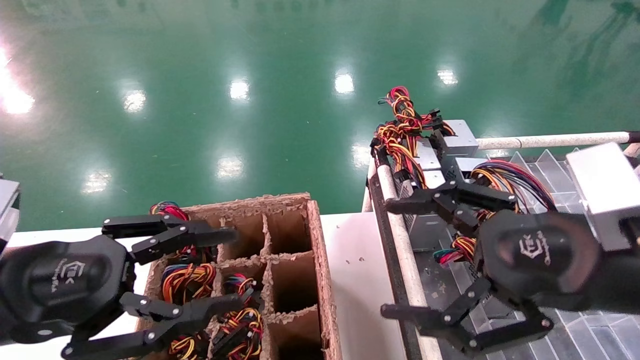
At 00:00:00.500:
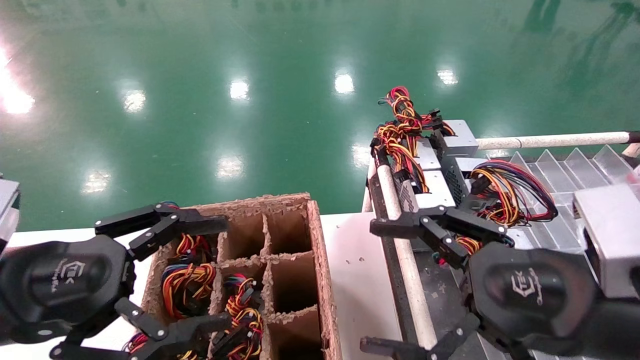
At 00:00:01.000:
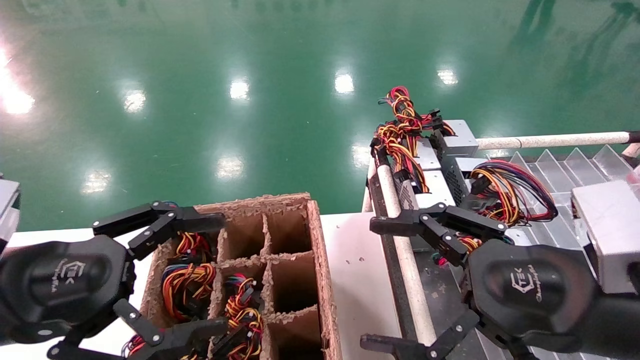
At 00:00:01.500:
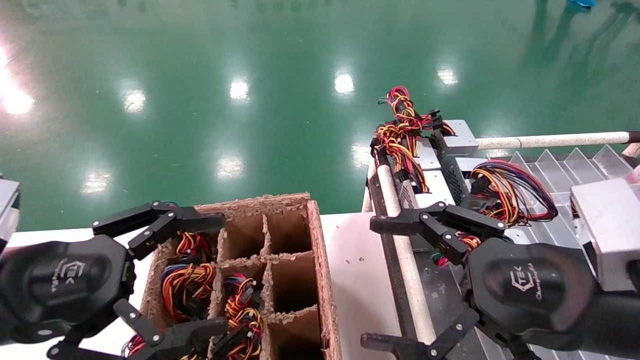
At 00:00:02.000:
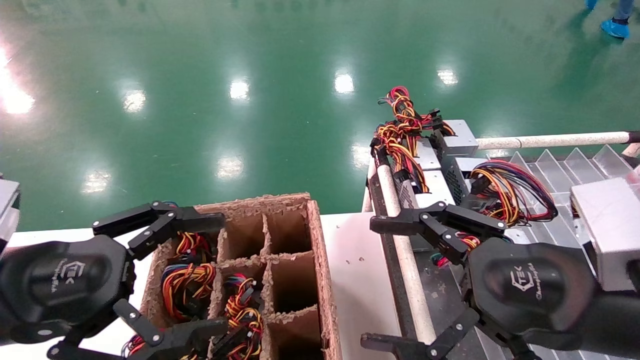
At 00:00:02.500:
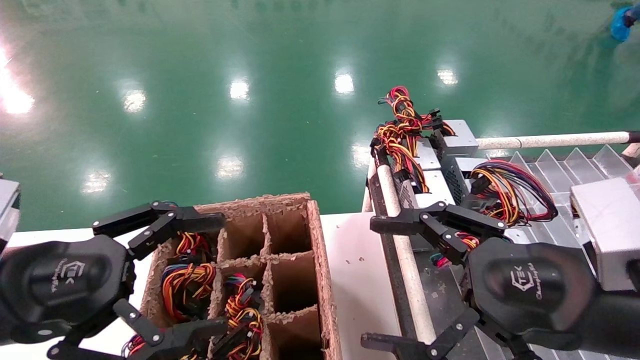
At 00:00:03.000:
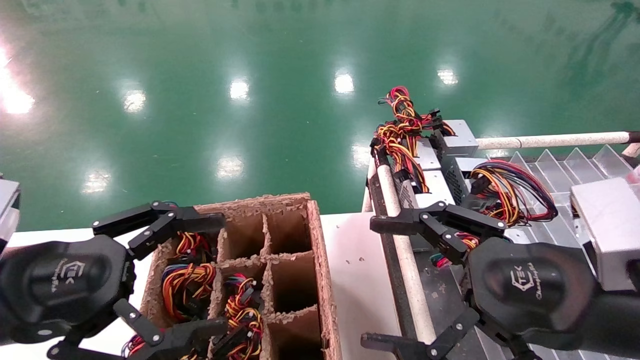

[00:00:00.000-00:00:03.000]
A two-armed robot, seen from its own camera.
00:00:00.000 to 00:00:01.500: The left gripper opens.
00:00:01.500 to 00:00:03.000: Both grippers stay put.
